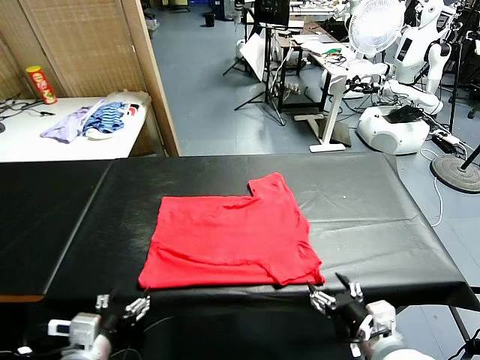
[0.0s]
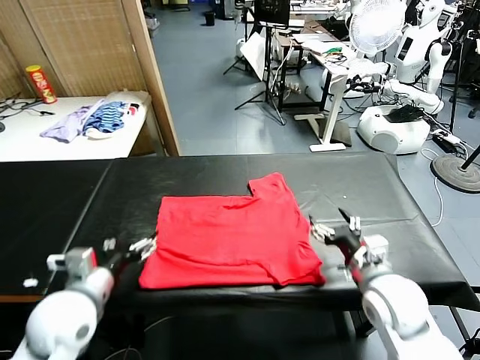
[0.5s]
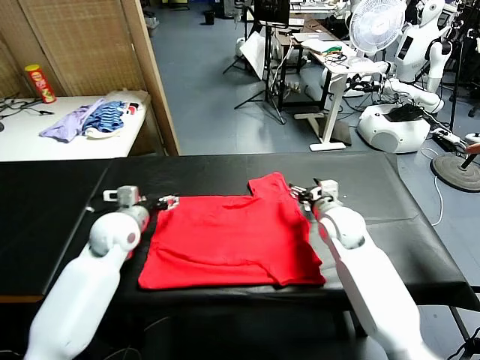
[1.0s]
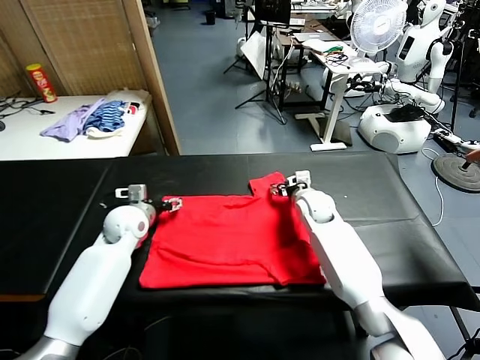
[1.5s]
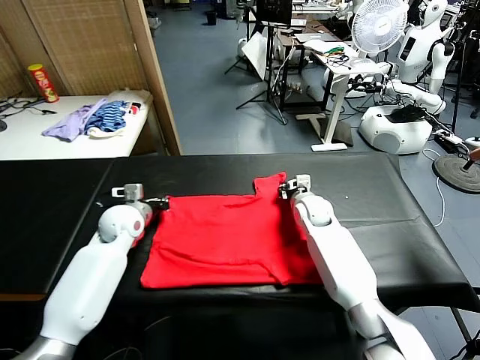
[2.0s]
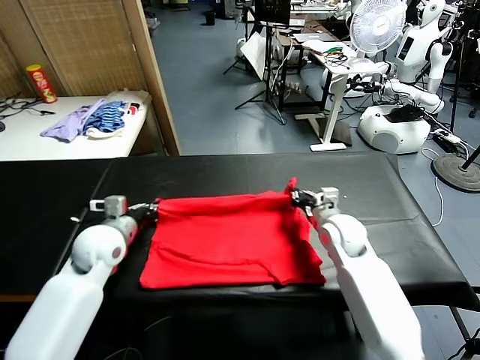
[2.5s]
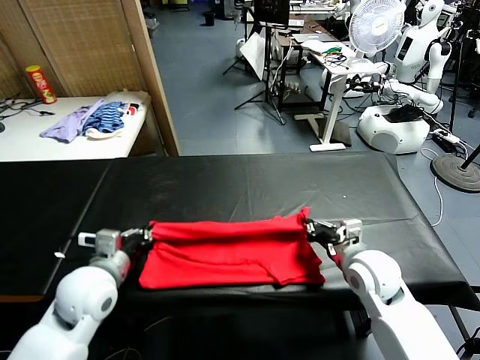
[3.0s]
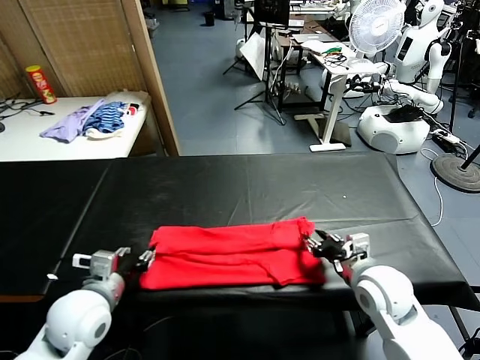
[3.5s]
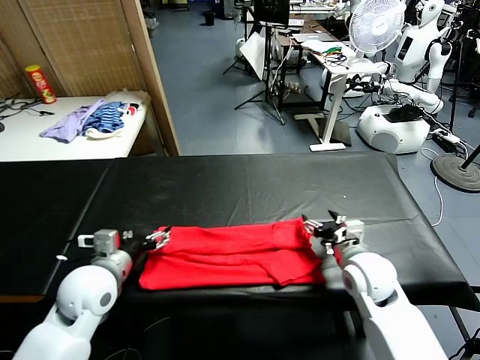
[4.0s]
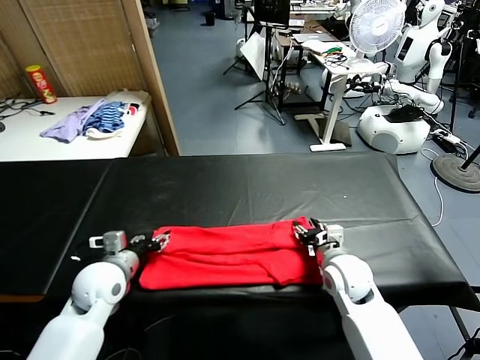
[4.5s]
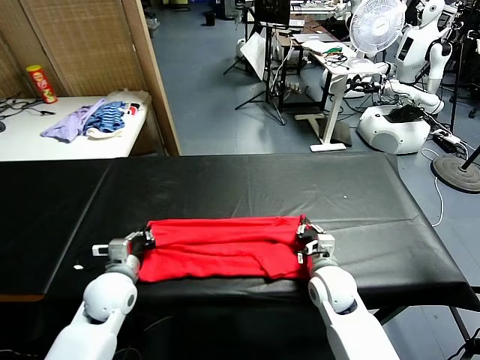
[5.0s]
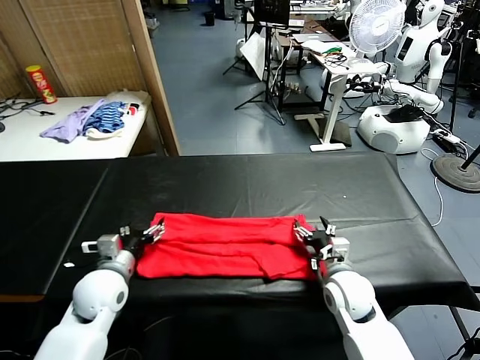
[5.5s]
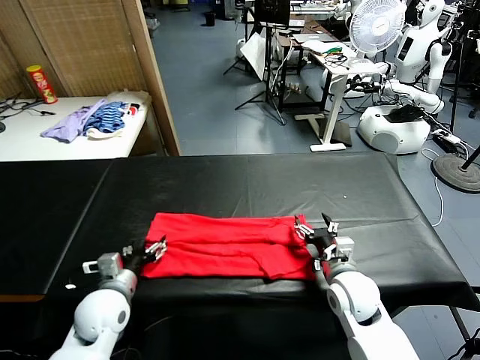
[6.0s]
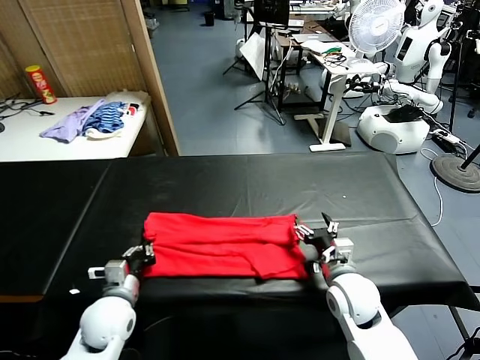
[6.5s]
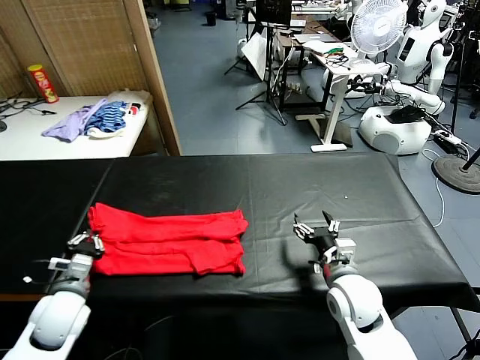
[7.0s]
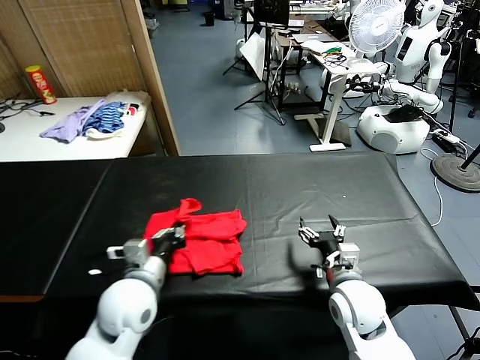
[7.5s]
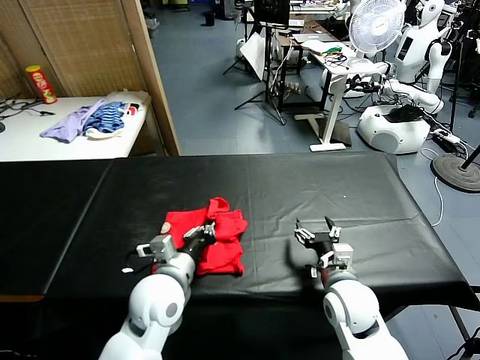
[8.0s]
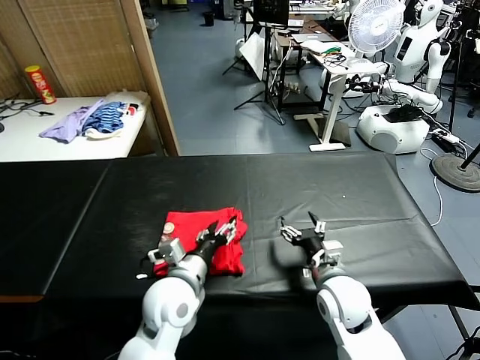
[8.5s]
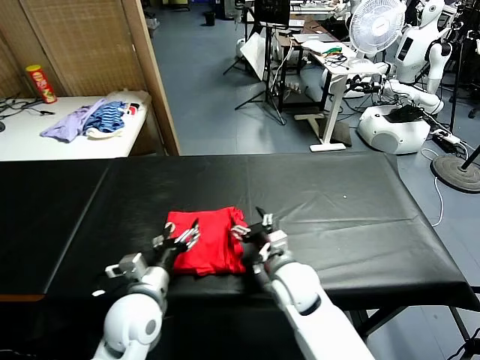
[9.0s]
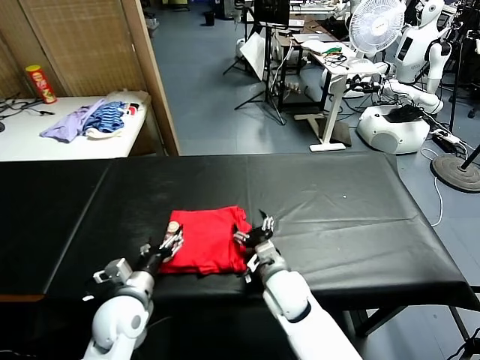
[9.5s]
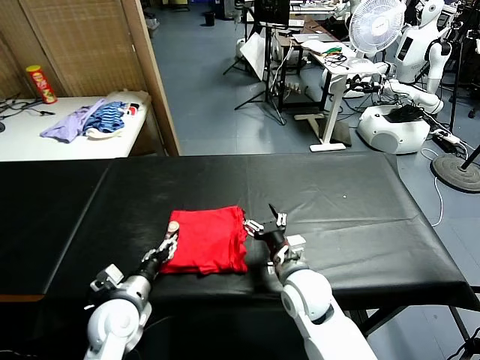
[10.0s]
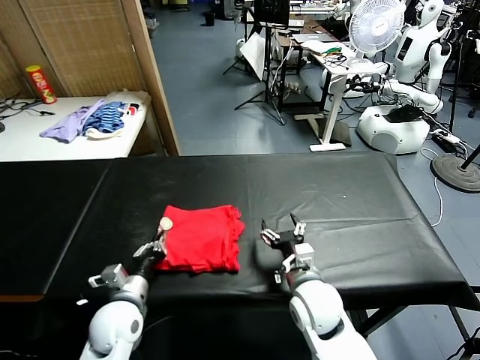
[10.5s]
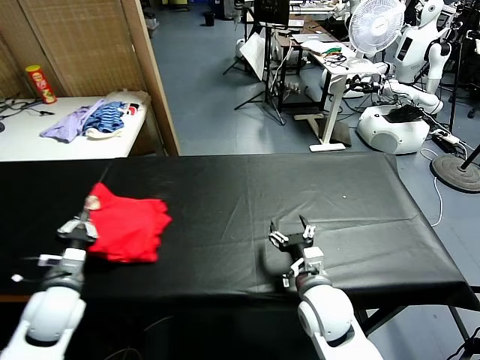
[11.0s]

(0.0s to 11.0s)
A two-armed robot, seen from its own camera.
Task of the whole recording: fold and organize the clothes.
Step, 0.0s - 2.0s: use both grippers simultaneously to clamp the upper edge of the clothing fabric.
Step, 2.5s - 3.5s: use both grippers to drag the upper edge of the fabric backward and fold it over the lower edge.
Step, 4.0s - 6.0s: use the left gripper to clamp the left edge of the fabric.
Step, 6.5s - 8.5s: use the left gripper to drag the left edge of the fabric to the left and folds it over the right edge.
0.0s - 2.0s: Both grippers travel together forward, about 35 cm. The right gripper closes its fingers, while the left gripper closes.
2.0s - 3.5s: The two grippers go roughly 20 cm backward. The left gripper opens. The right gripper opens up.
3.5s - 5.5s: The left gripper heads forward and downward, covering about 10 cm, and closes and opens again; the right gripper goes about 10 cm downward, and closes, then opens again.
5.5s - 7.5s: The left gripper heads to the right, covering about 10 cm, and closes.
7.5s - 9.0s: The left gripper opens its fingers, while the right gripper is displaced to the left by some 10 cm.
9.0s - 11.0s: The right gripper moves to the right and backward, some 10 cm. Meanwhile the left gripper goes roughly 15 cm to the left, and closes up.

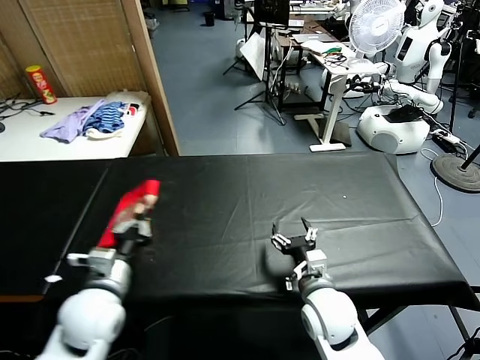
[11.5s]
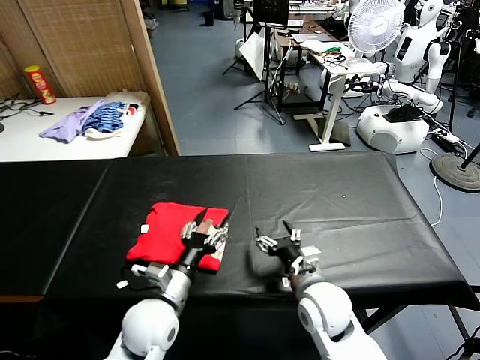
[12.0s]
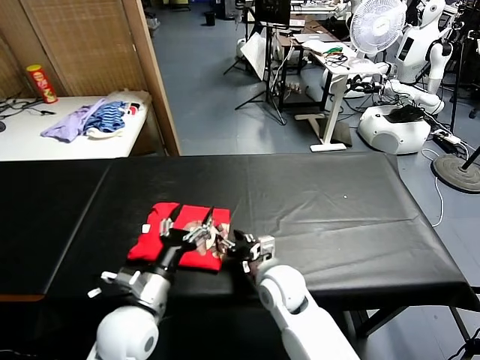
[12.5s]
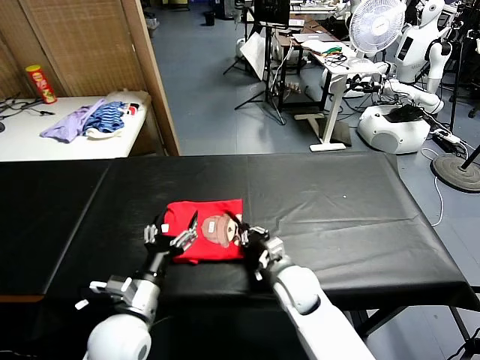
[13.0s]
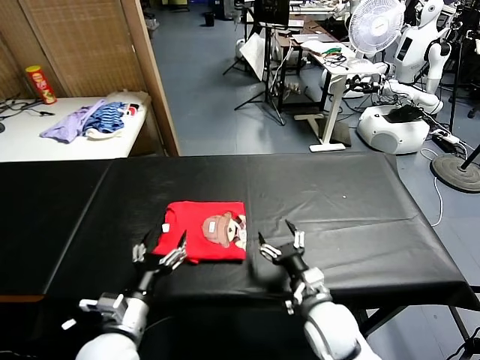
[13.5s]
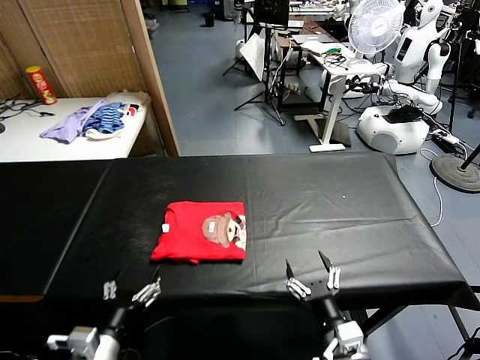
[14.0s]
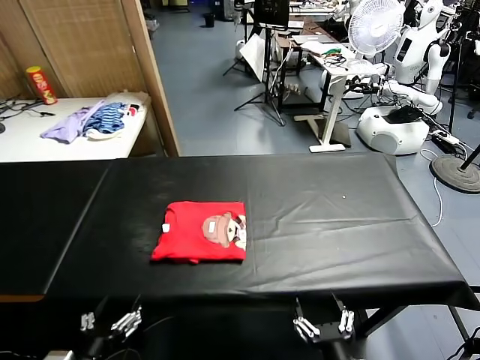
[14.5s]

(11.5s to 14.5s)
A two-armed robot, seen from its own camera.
Task of the whole recording: fold and organize the clothes.
Step, 12.0s - 13.0s: Drag the clothes to the center of the table.
11.5s - 13.0s: The left gripper shifts about 5 cm to the right, and opens its fingers, while the right gripper heads forward and to the left, covering approximately 10 cm, and closes up.
13.0s - 14.5s: The left gripper travels backward and to the left by some 15 cm. The right gripper shifts about 25 cm backward, and opens.

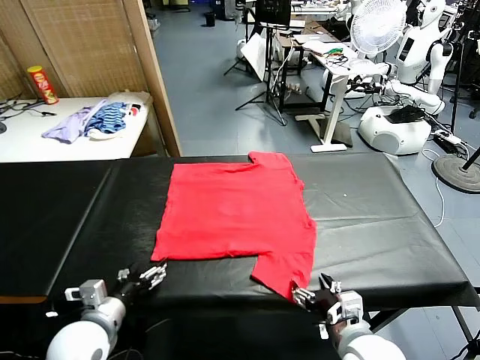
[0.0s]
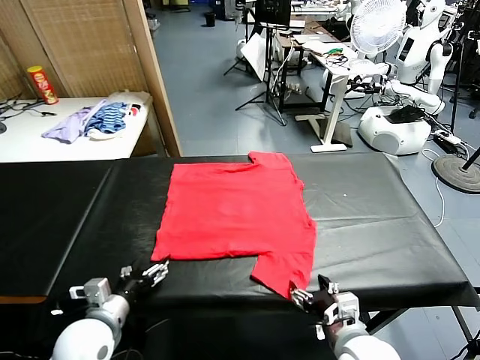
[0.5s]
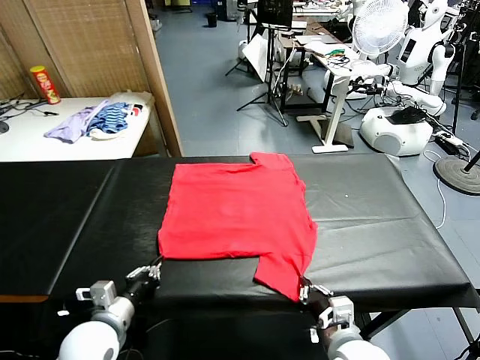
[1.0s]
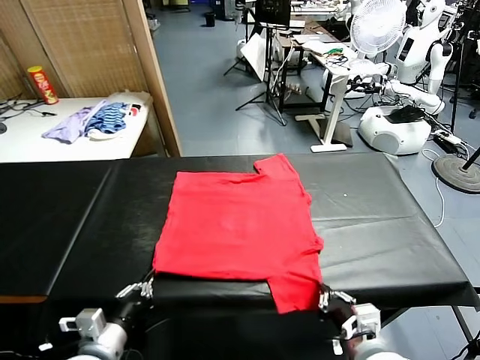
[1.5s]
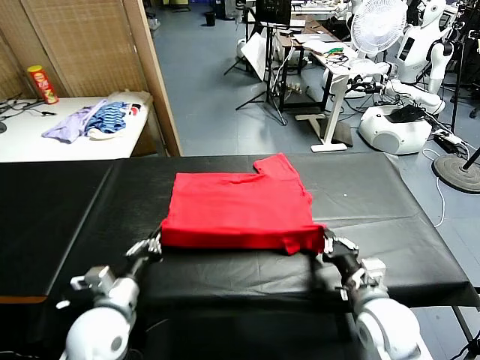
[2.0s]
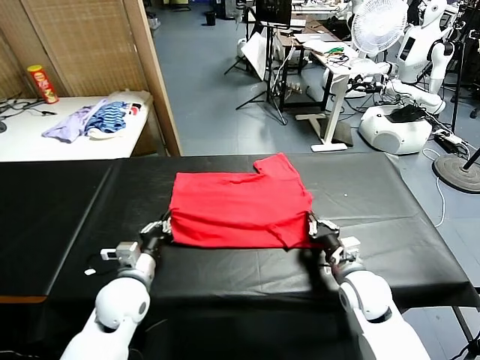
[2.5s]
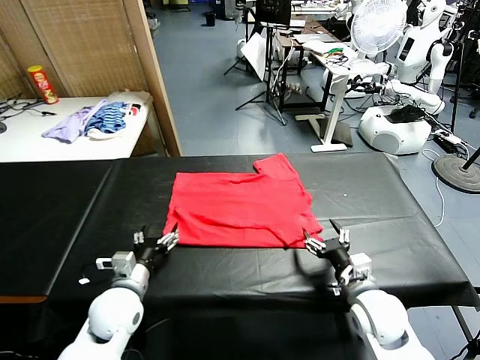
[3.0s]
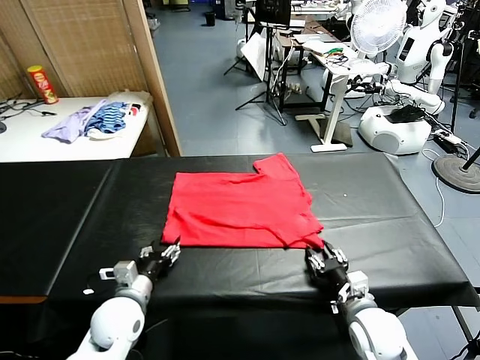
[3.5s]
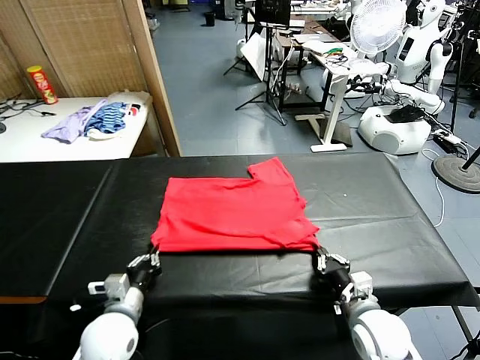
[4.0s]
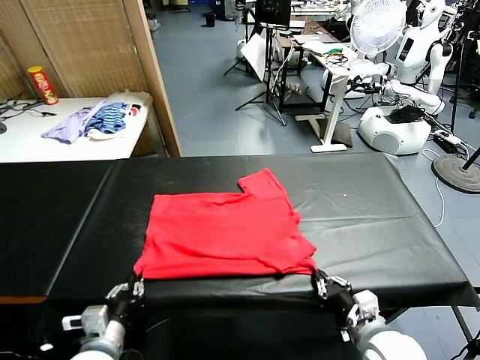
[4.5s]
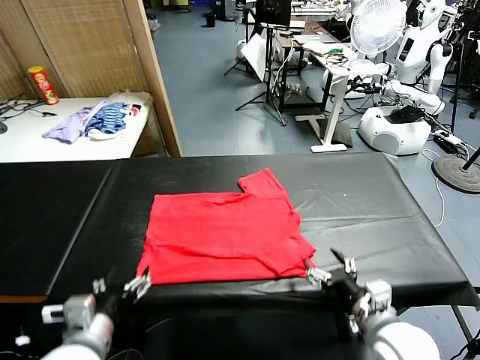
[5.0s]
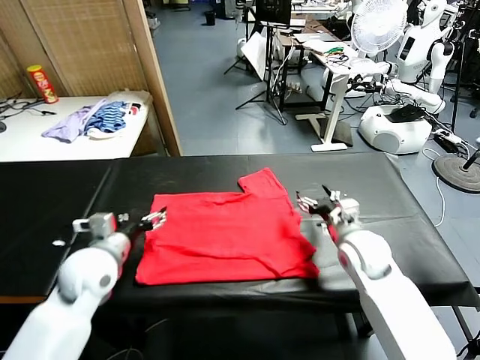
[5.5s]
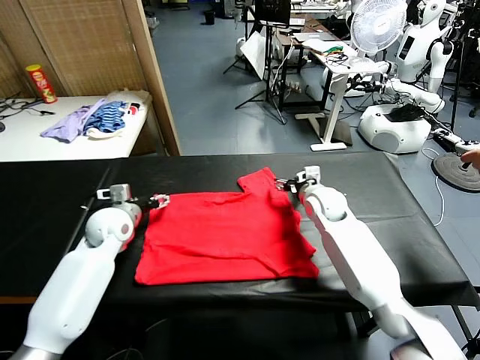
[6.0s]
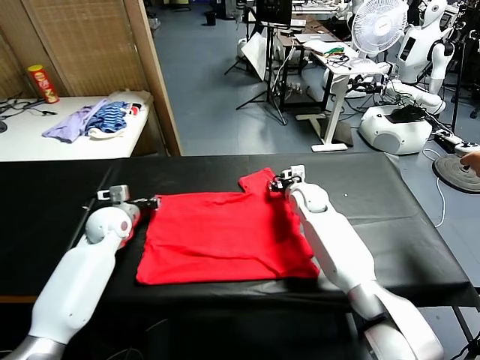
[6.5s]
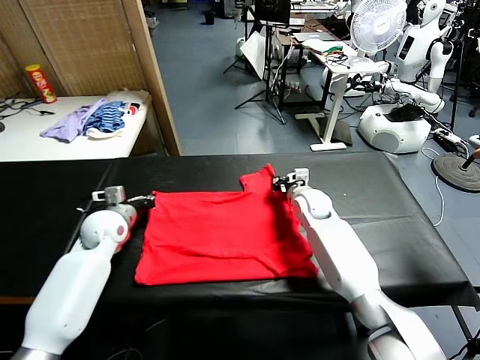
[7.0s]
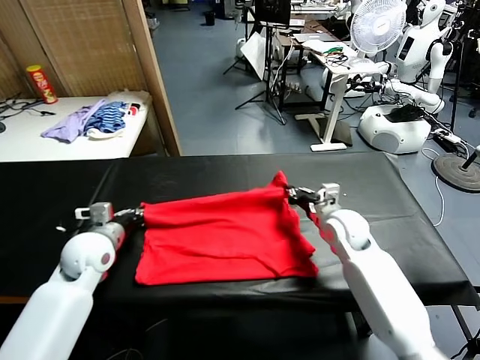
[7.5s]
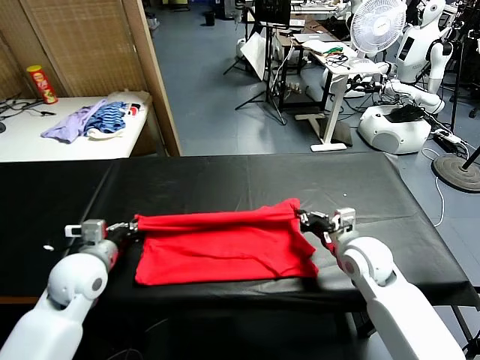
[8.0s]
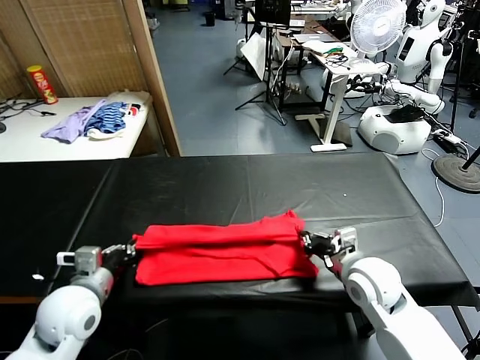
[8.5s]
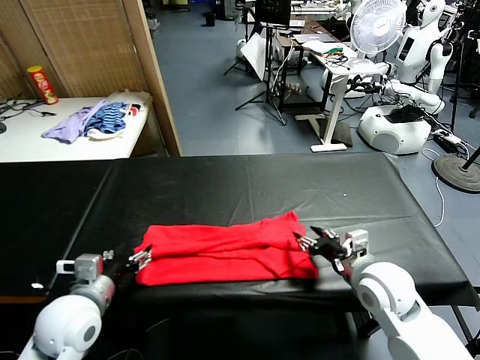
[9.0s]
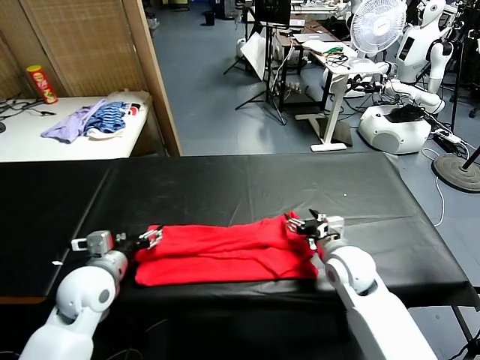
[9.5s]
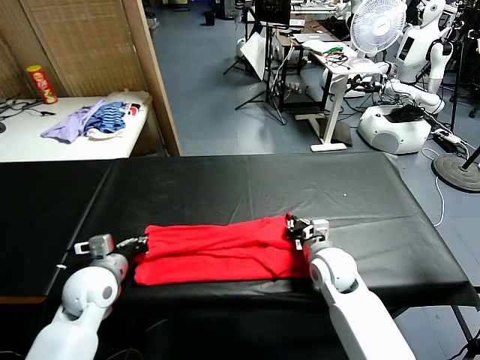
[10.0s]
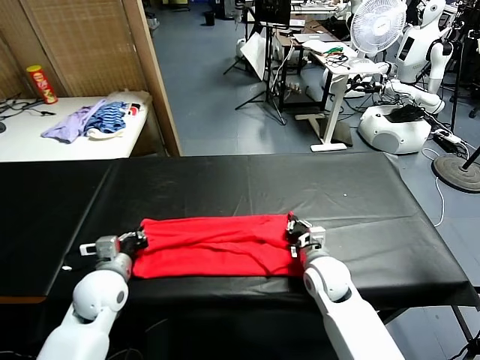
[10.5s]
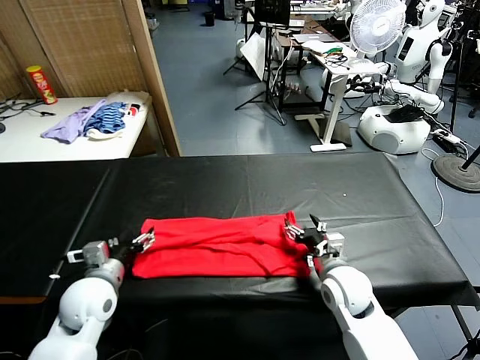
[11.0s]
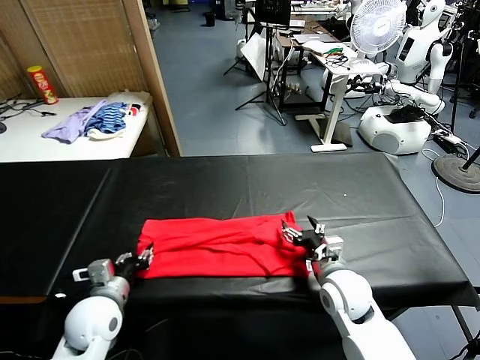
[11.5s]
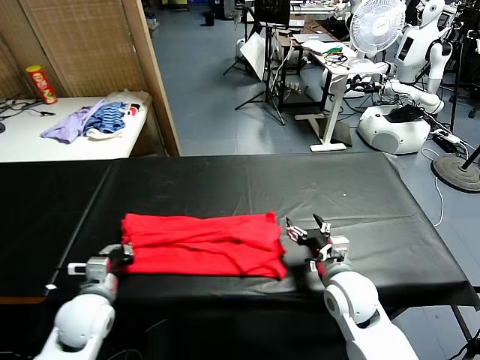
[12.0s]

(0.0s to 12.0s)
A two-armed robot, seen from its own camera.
Task of the whole recording: fold and organize the clothes.
Step, 0.0s - 1.0s: use both grippers simultaneously to clamp the lower edge of the clothing fabric.
Step, 1.5s - 2.5s: use both grippers to drag the lower edge of the fabric forward and fold it over the upper edge.
Step, 3.5s - 4.5s: Drag the clothes downward with both gripper.
Step, 5.5s - 7.0s: use both grippers simultaneously to clamp the upper edge of the clothing fabric.
Step, 7.5s - 9.0s: use both grippers to drag the upper edge of the fabric backward and fold it over the lower edge.
Step, 9.5s - 12.0s: use the left gripper to clamp the left edge of the fabric.
2.0s - 4.0s: The left gripper goes approximately 5 cm backward, and opens, then closes again. The right gripper travels backward by roughly 10 cm, and opens and closes again.
4.0s - 6.0s: The grippers both shift forward by some 30 cm. The right gripper opens up. Meanwhile the left gripper opens up.
6.0s - 8.0s: The two grippers go roughly 20 cm backward. The left gripper closes. Meanwhile the right gripper closes its fingers.
8.0s - 10.0s: The right gripper goes approximately 10 cm downward and to the left, and opens and closes again. The left gripper shifts some 5 cm downward, and opens, then closes again.
10.0s - 12.0s: The right gripper moves backward, approximately 5 cm, and opens up. Meanwhile the left gripper shifts by approximately 5 cm, and opens, then closes again.
